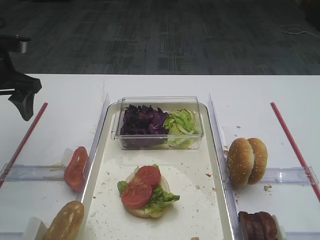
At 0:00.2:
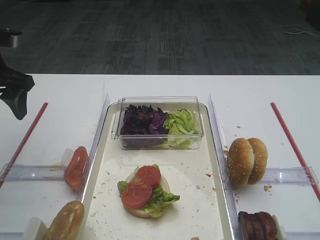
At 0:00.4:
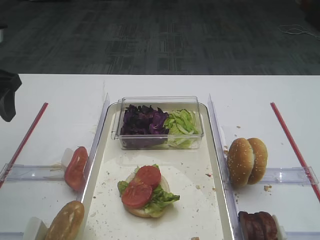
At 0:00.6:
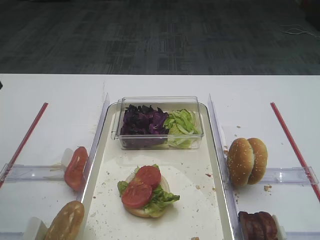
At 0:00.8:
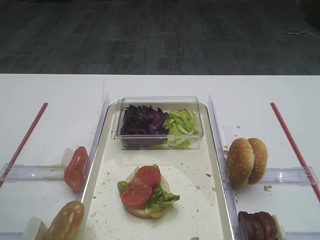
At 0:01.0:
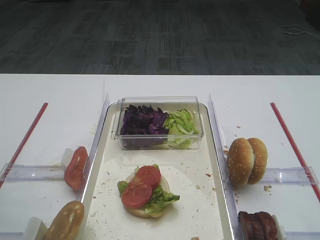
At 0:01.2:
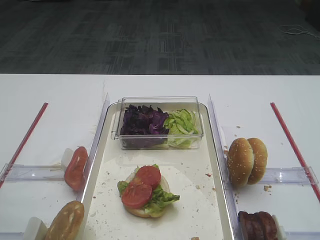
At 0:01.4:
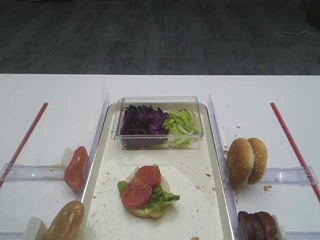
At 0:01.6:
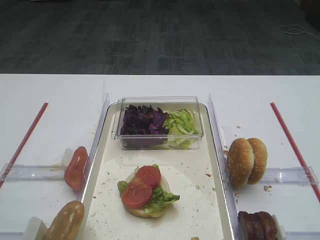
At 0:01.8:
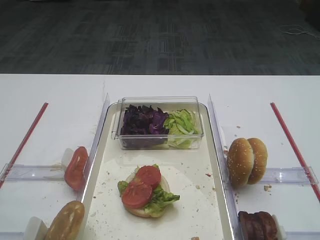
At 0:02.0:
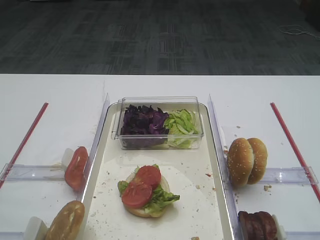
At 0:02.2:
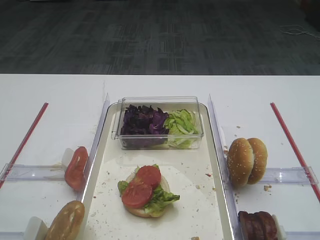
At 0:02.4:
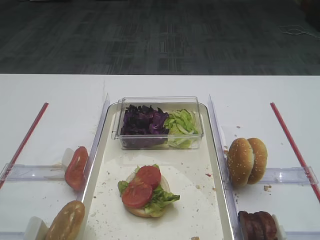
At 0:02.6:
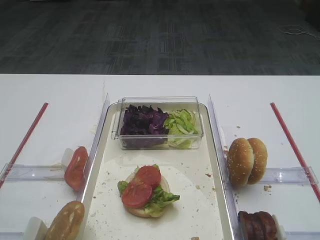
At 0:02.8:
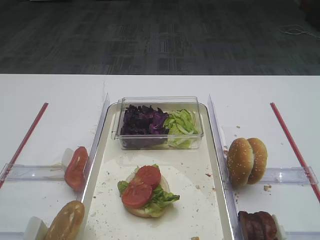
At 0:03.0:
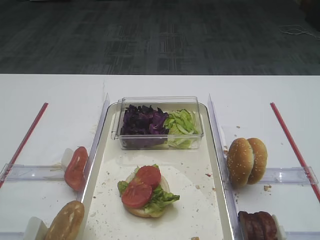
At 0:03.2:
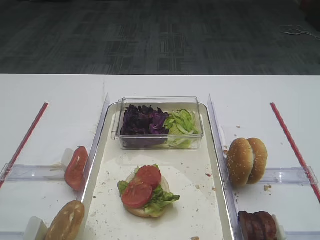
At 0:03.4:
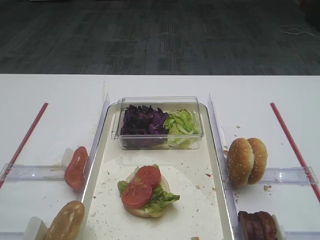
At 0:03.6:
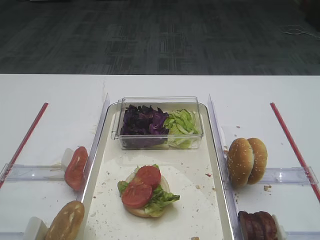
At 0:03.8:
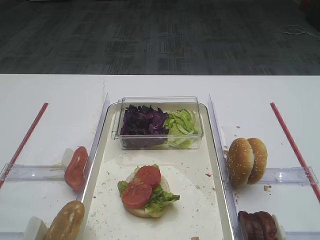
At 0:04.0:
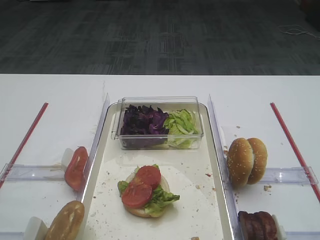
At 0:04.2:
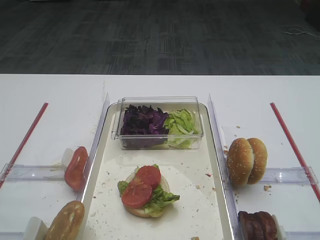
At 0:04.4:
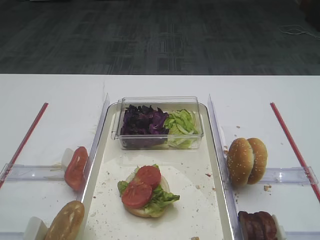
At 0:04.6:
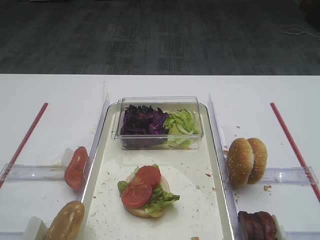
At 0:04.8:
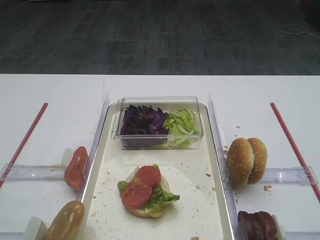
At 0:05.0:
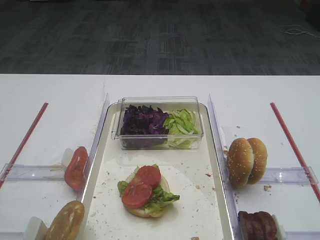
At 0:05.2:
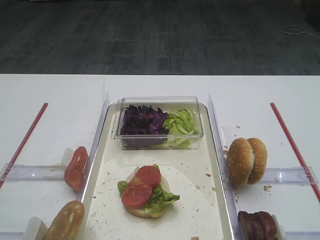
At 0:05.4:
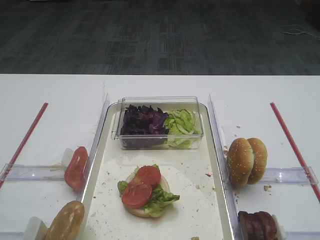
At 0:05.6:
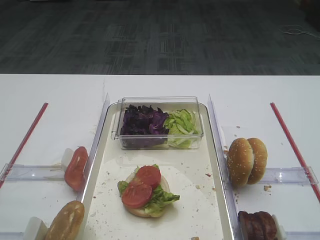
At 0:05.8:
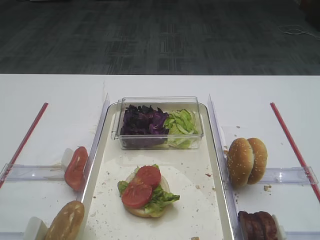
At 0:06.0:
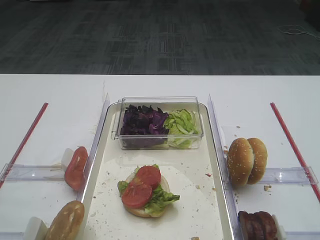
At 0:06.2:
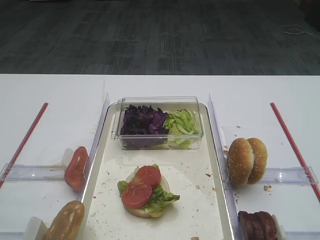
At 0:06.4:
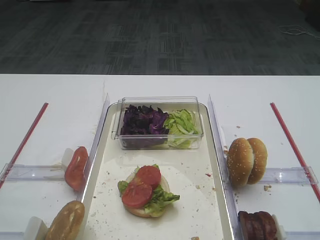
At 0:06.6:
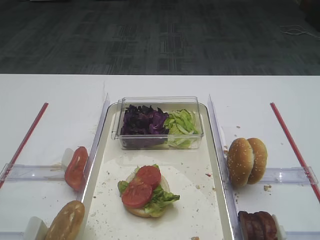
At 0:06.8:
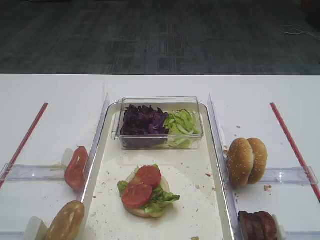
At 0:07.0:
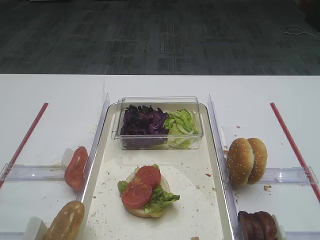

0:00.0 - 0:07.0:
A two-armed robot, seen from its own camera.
0:00.0 - 0:01.4: The left gripper heads backward, covering roughly 30 cm.
0:02.8 - 0:07.0: Both grippers stay put.

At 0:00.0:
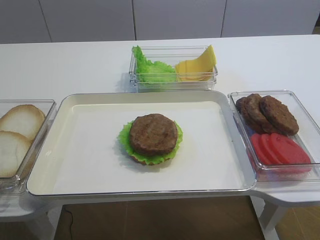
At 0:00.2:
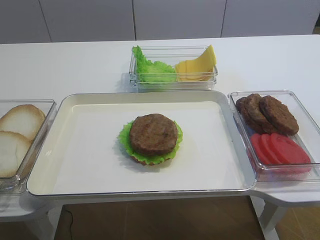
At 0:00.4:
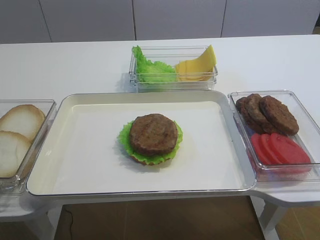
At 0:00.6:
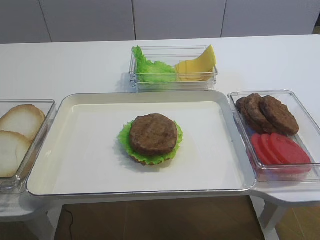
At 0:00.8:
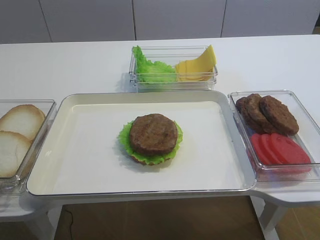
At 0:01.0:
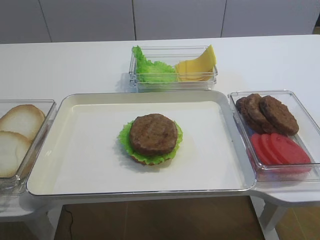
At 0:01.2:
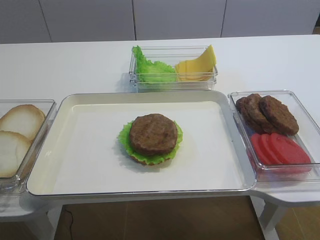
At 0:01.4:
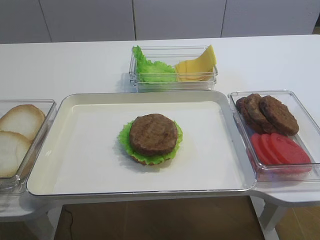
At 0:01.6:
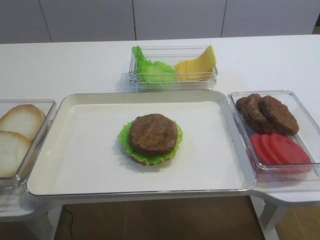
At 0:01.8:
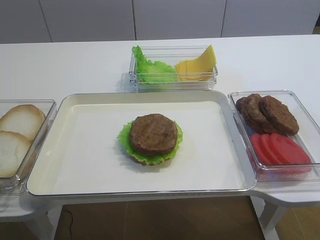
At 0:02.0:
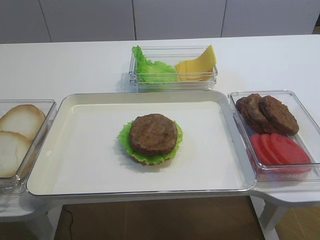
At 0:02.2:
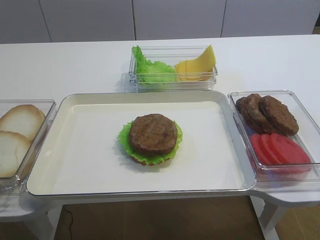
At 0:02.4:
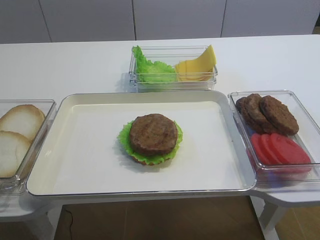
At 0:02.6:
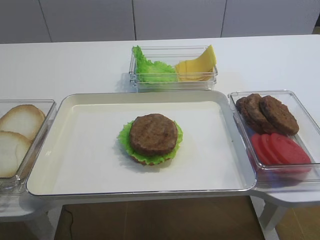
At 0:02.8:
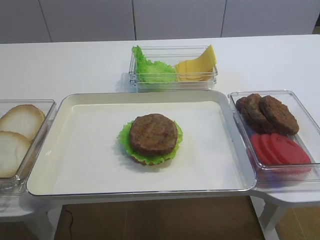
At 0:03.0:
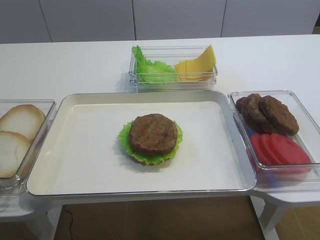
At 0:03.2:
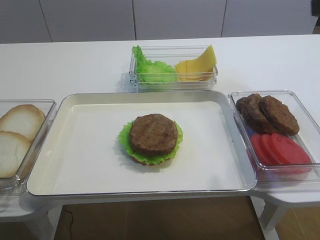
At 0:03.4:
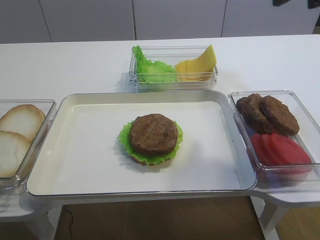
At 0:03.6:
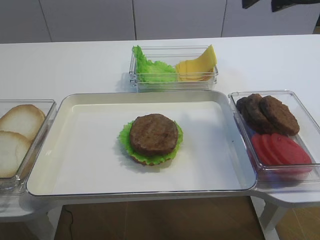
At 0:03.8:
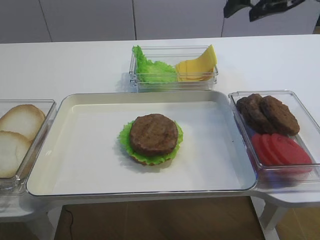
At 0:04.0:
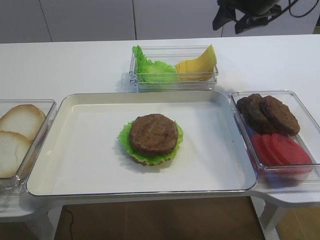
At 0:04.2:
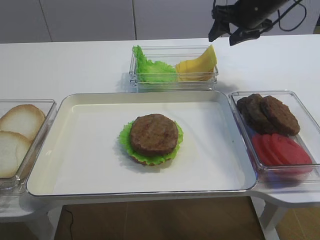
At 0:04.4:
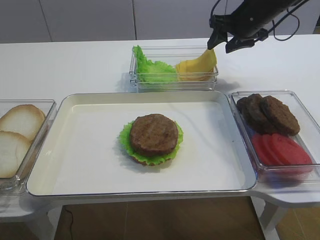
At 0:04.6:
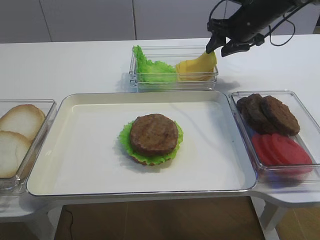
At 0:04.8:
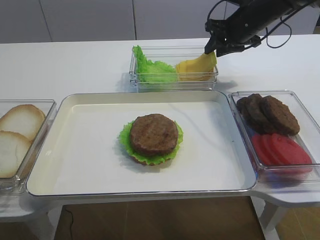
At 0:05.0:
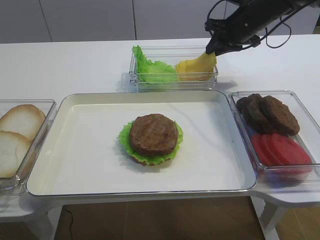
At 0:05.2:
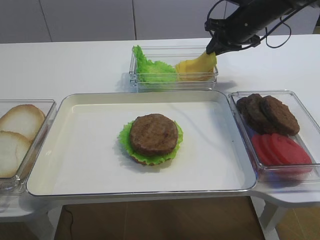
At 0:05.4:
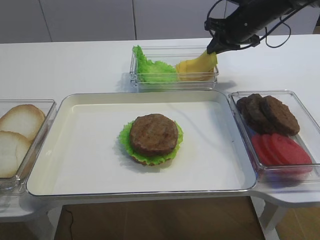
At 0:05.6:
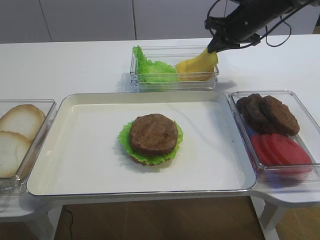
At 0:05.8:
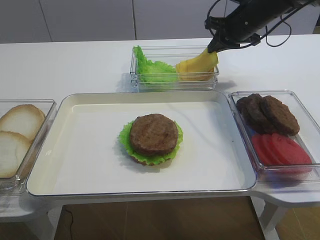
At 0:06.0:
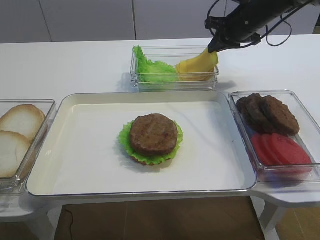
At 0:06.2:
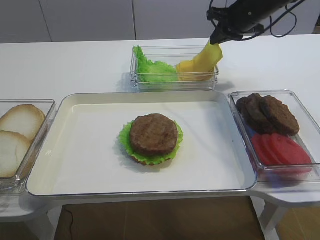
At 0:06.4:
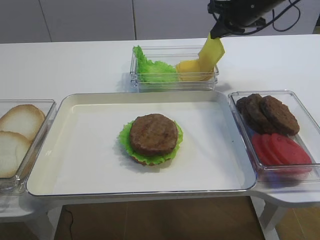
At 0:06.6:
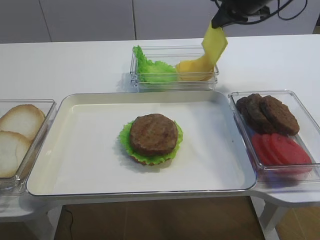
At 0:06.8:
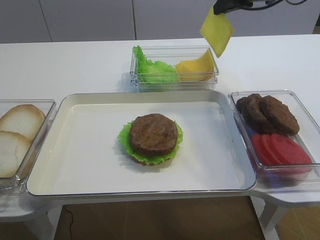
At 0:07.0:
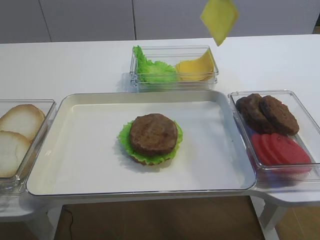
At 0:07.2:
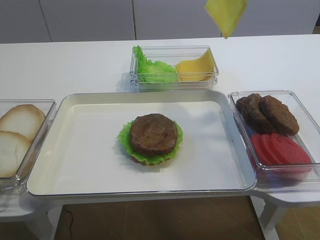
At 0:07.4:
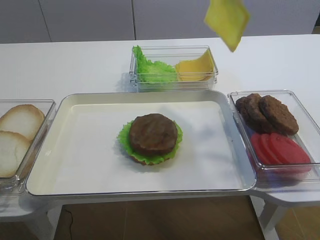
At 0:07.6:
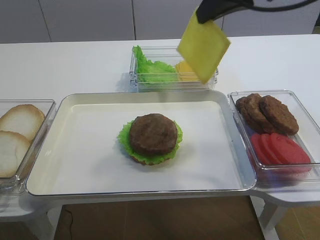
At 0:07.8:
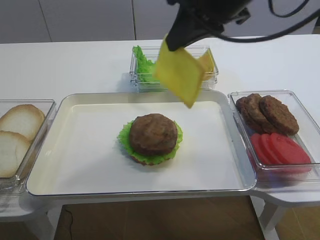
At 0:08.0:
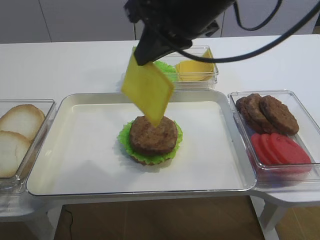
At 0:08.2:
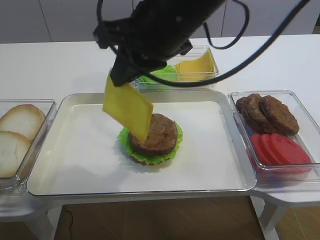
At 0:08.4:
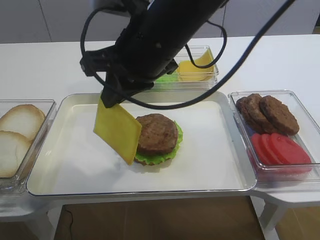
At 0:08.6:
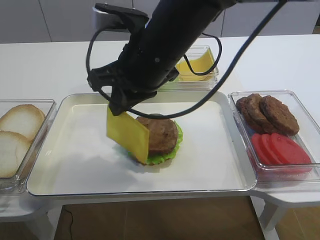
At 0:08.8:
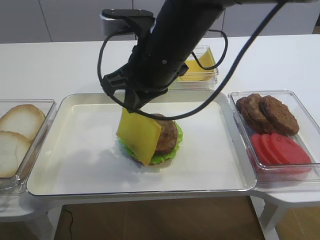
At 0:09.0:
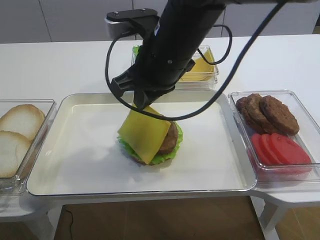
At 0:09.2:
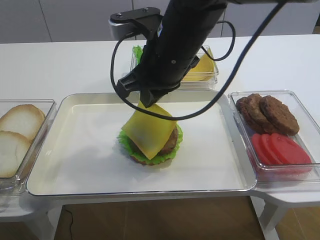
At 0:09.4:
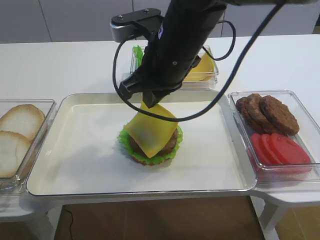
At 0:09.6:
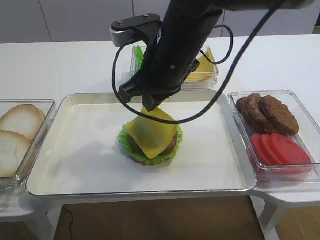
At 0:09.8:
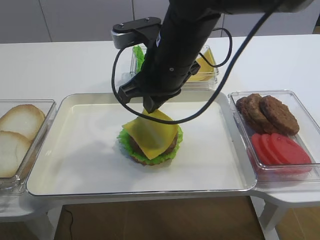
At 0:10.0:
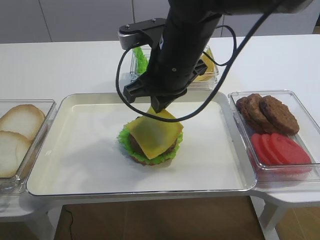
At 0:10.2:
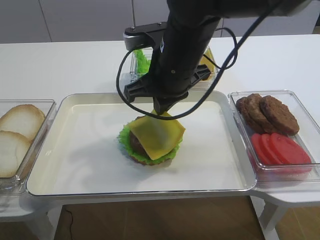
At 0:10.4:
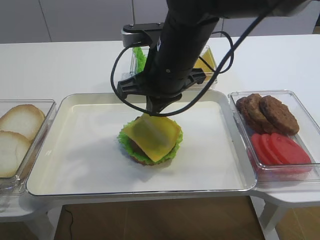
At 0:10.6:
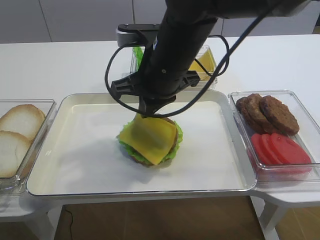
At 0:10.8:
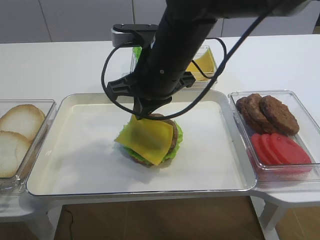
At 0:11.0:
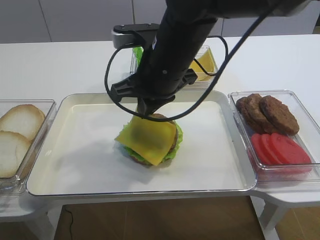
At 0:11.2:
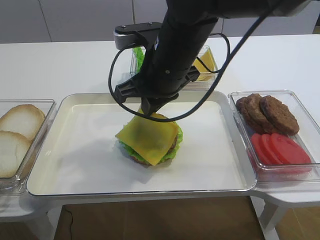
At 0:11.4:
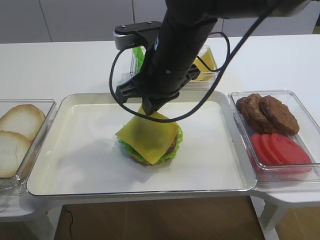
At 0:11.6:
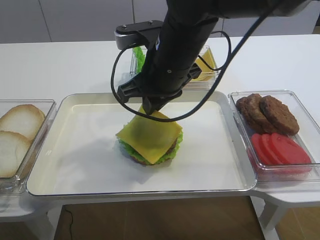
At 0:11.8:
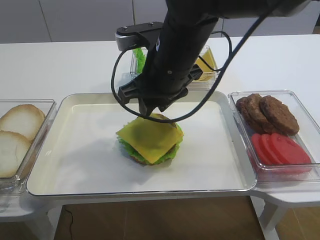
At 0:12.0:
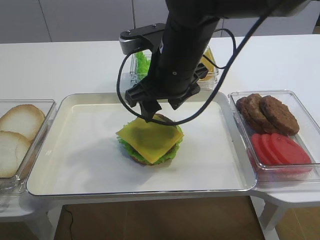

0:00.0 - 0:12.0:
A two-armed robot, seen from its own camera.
Step, 0:00.0 - 0:06.4: Pick up the cheese slice with the right gripper.
0:01.6 - 0:03.0: The right gripper is displaced forward and upward by roughly 20 cm.
0:03.0 - 0:04.4: The right gripper moves forward, roughly 35 cm.
0:04.4 - 0:06.0: The right gripper closes up.
0:06.0 - 0:07.6: The right gripper goes some 25 cm backward and upward.
0:07.6 - 0:09.0: The right gripper travels to the left and downward by about 15 cm.
0:09.0 - 0:10.4: The grippers stay close to where they were, moving slightly.
0:10.4 - 0:12.0: The right gripper opens its fingers.

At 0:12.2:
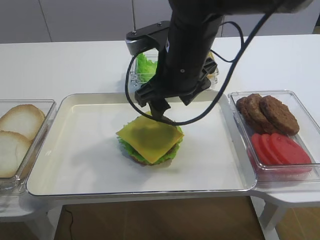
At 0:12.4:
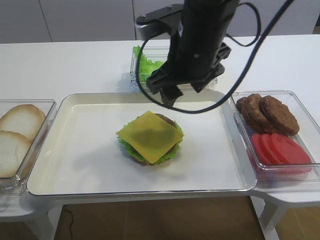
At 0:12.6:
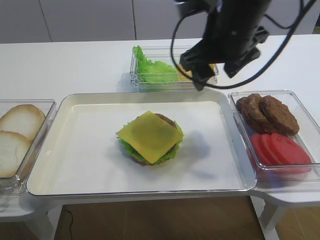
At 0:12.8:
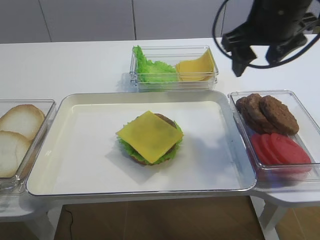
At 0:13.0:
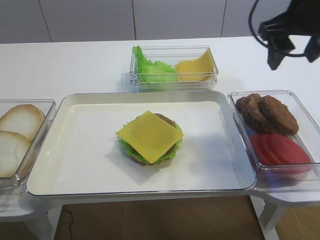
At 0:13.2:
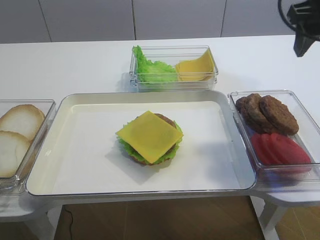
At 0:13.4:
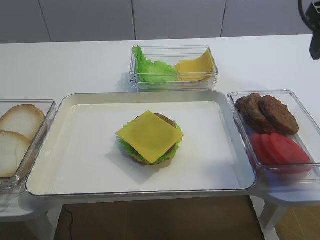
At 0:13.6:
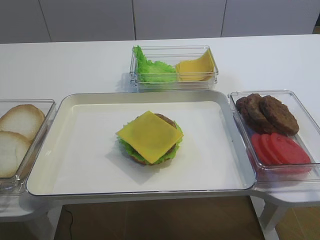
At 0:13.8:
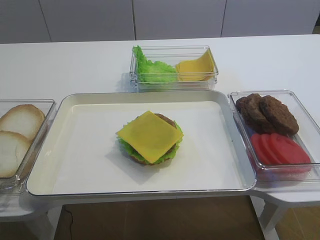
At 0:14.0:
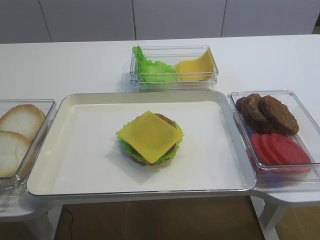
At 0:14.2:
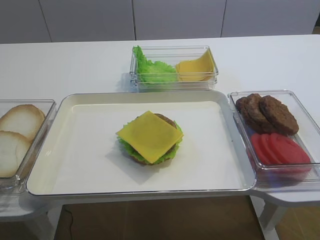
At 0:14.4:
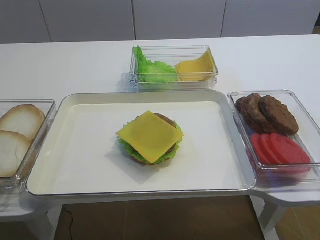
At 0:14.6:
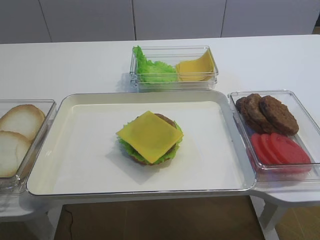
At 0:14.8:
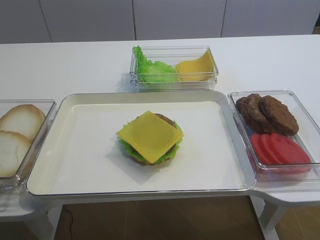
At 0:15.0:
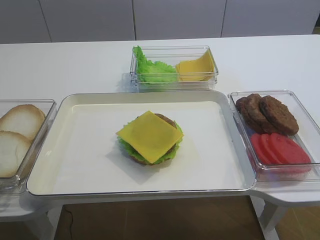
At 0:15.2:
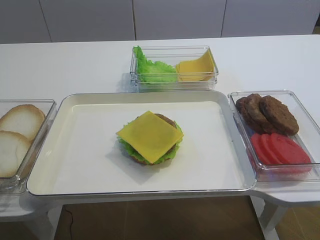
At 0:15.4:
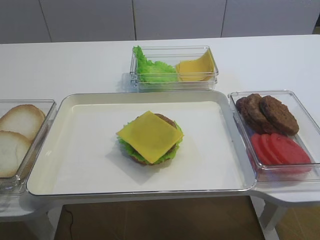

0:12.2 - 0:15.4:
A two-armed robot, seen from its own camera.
0:12.2 - 0:13.8: The right gripper shifts about 25 cm to the right and backward.
